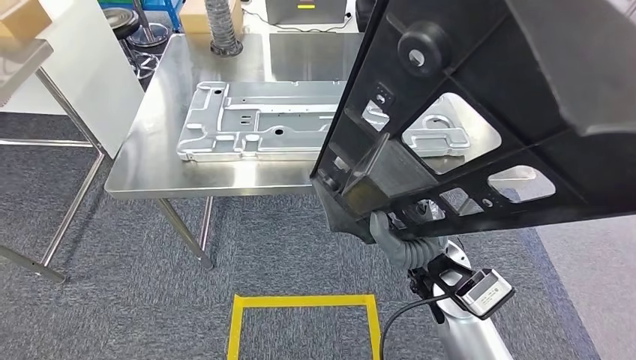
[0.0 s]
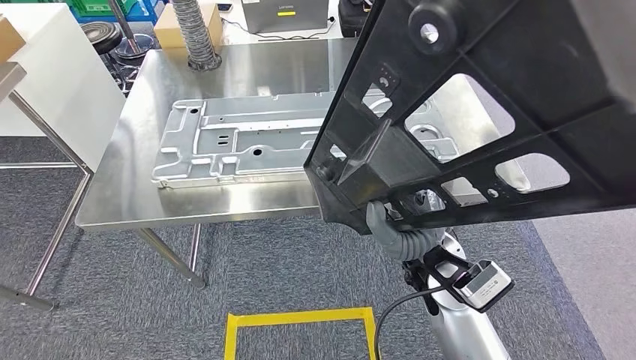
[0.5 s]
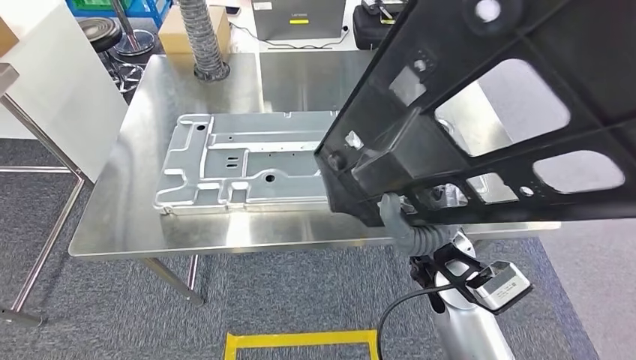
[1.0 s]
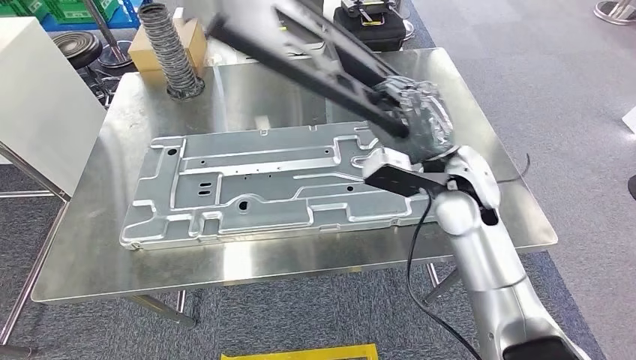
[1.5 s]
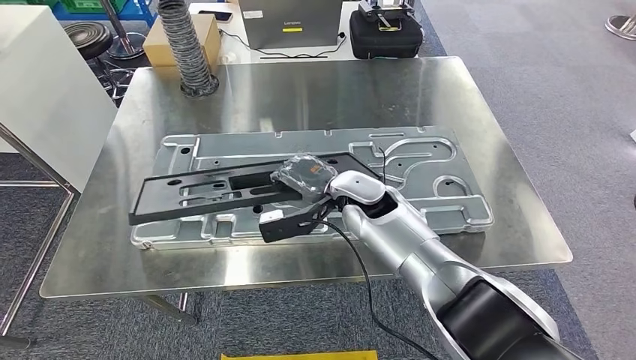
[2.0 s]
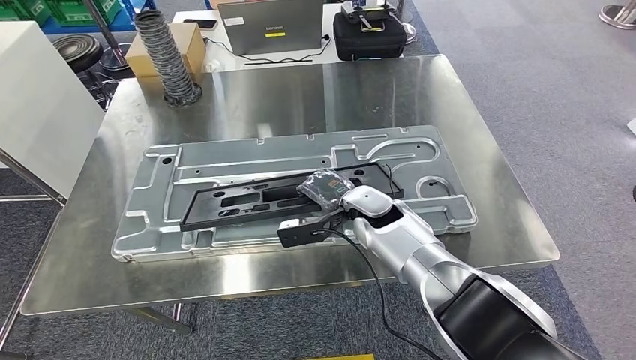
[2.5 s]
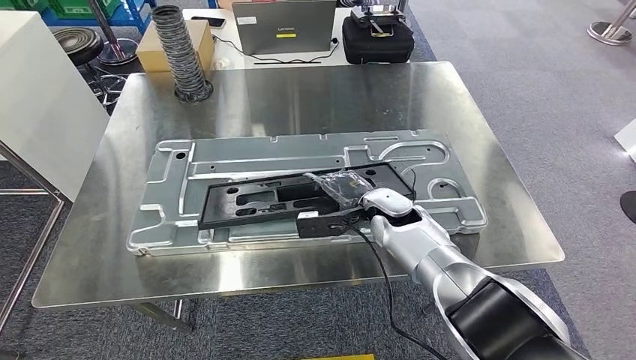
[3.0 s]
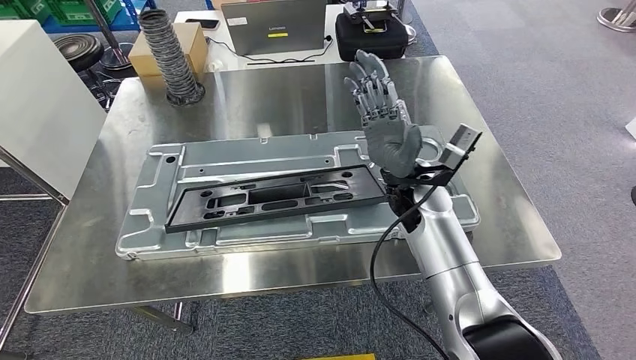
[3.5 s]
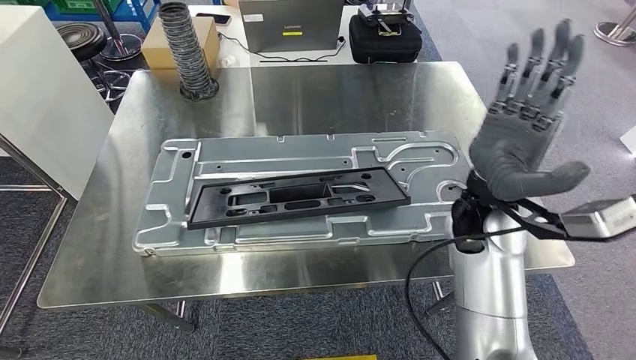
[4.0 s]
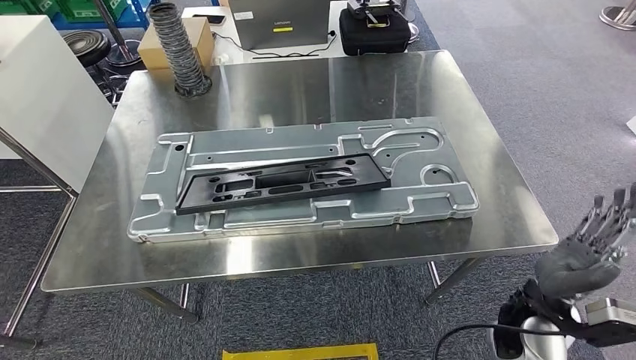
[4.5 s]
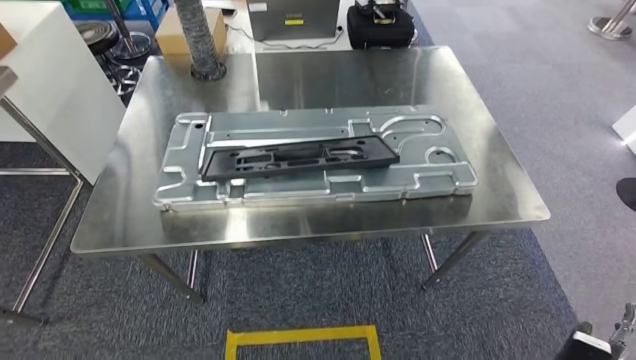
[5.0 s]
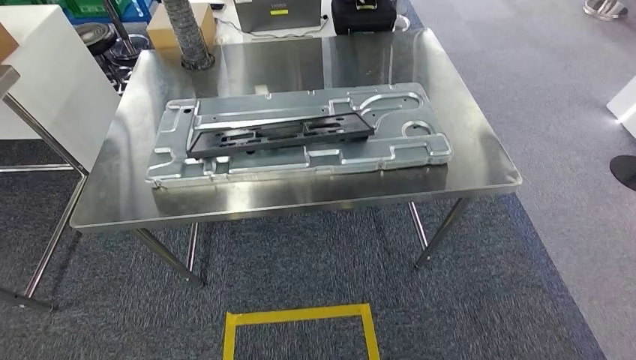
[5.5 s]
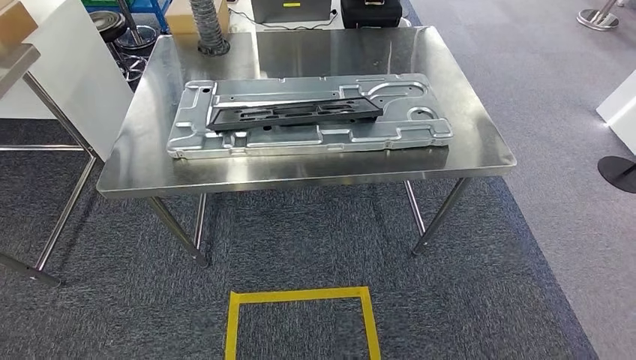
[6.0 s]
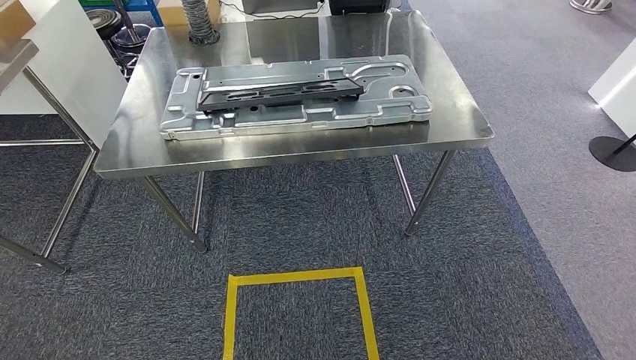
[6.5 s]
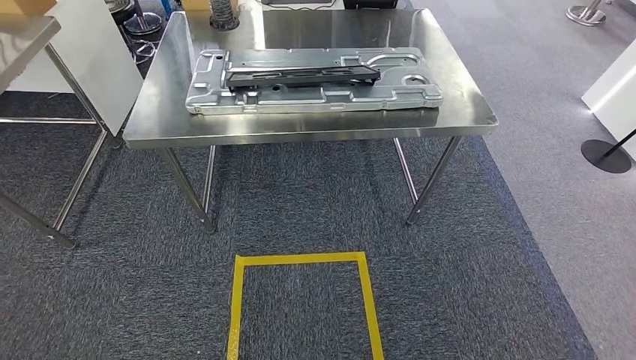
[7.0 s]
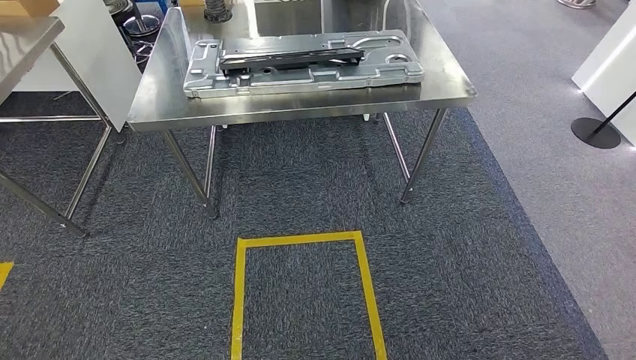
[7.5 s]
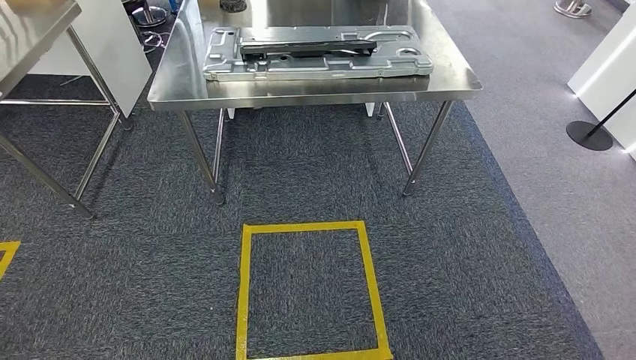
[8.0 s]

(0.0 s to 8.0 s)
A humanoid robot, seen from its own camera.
Step, 0.0 s - 3.0 s: Insert the small parts into the corresponding holes on the workbench.
Step, 3.5 s - 8.0 s: Move to the initial position at the workbench.
